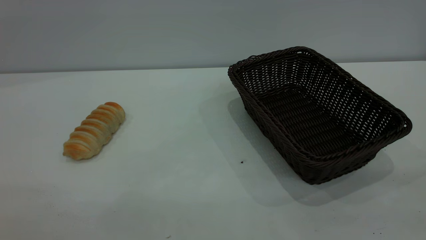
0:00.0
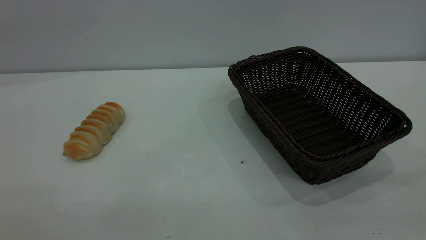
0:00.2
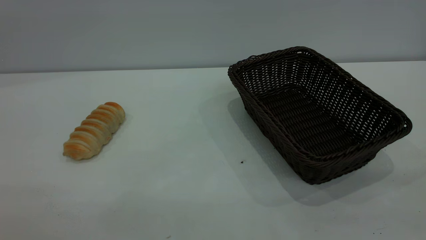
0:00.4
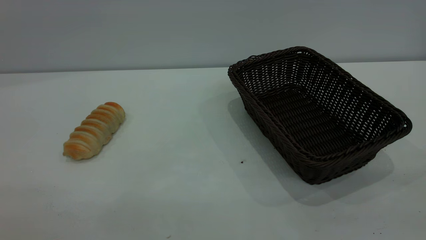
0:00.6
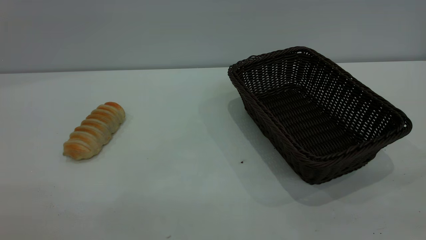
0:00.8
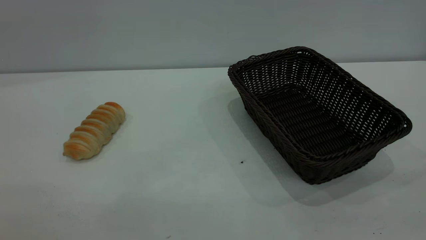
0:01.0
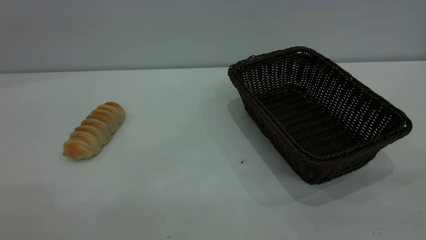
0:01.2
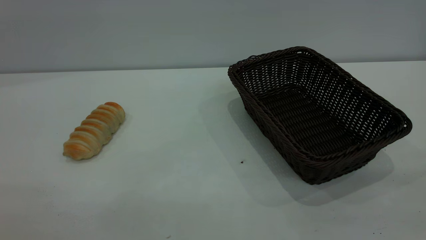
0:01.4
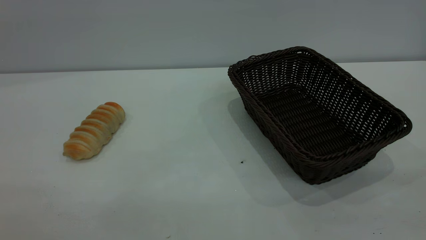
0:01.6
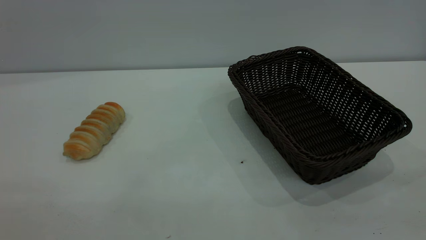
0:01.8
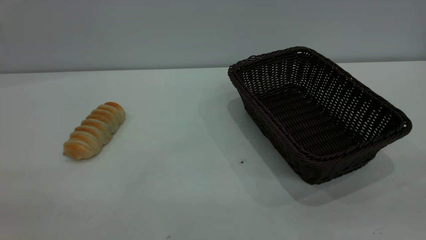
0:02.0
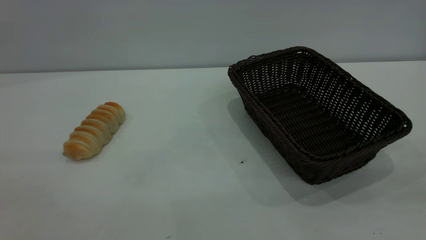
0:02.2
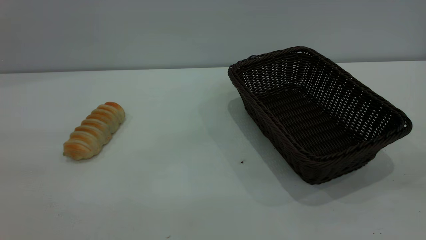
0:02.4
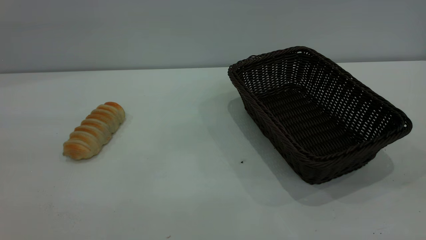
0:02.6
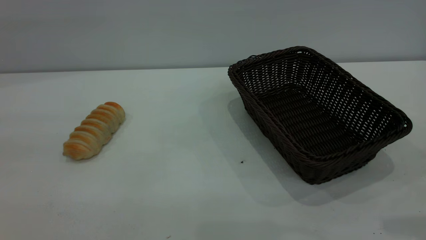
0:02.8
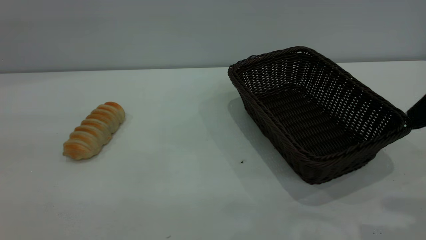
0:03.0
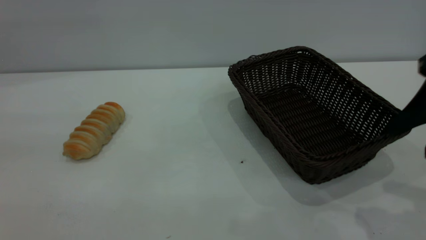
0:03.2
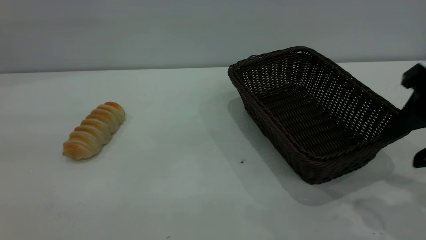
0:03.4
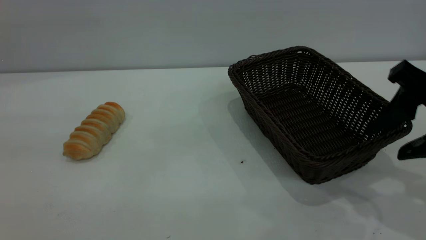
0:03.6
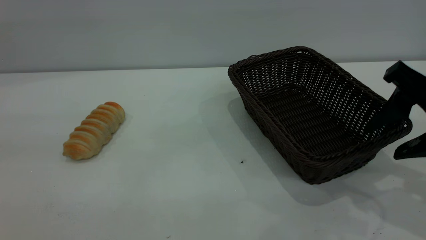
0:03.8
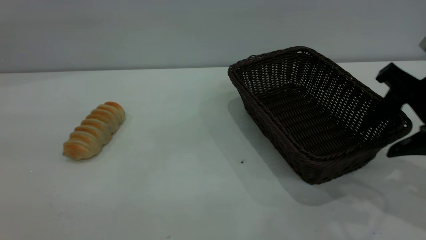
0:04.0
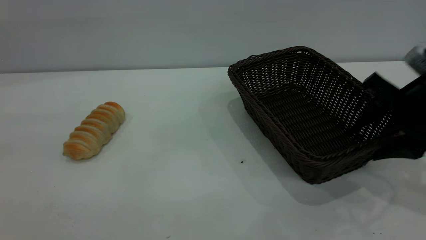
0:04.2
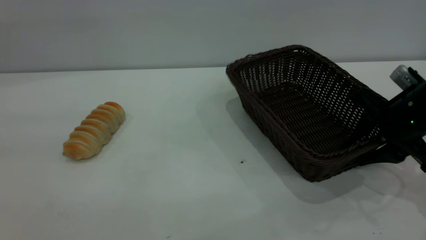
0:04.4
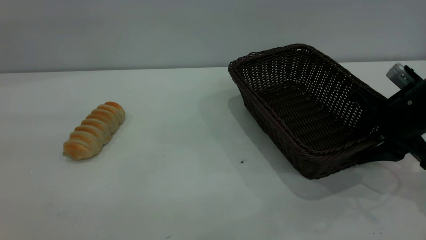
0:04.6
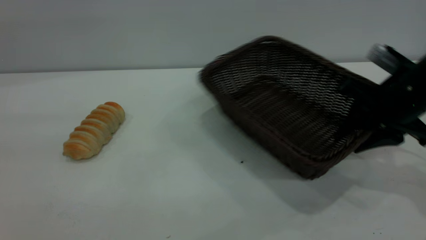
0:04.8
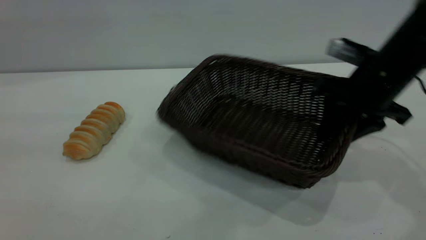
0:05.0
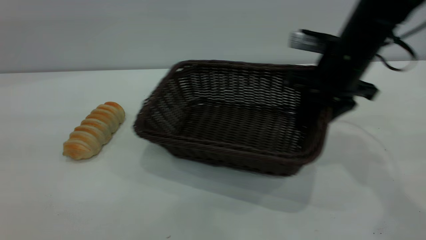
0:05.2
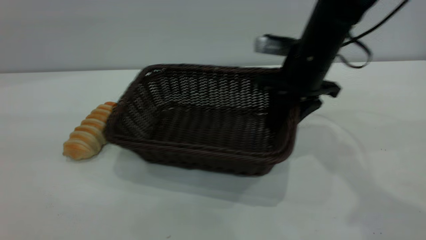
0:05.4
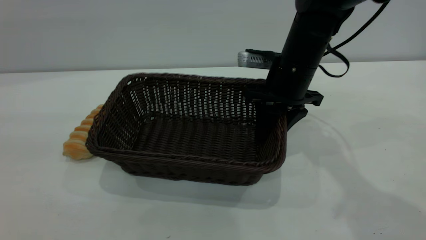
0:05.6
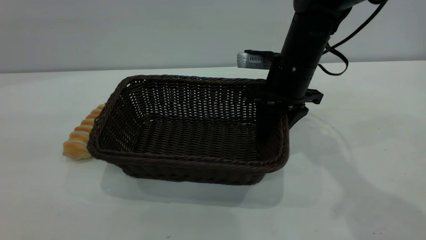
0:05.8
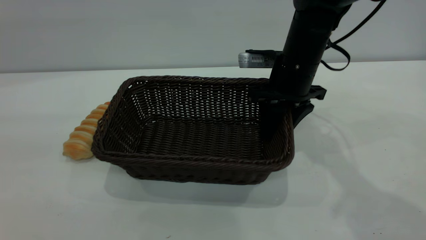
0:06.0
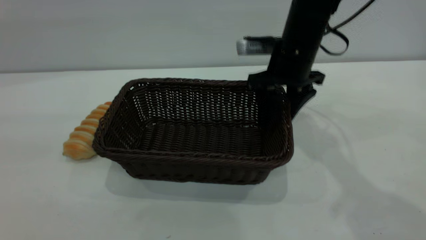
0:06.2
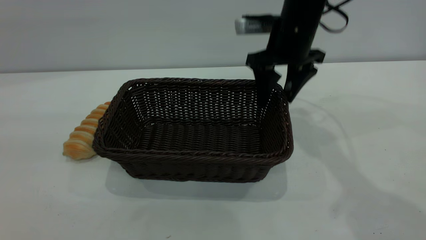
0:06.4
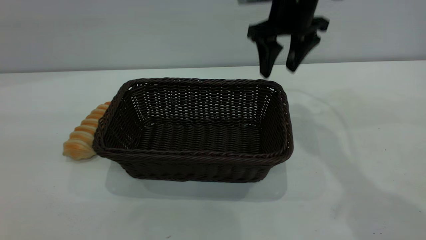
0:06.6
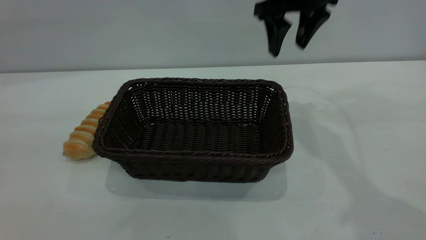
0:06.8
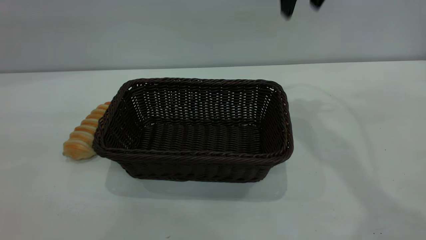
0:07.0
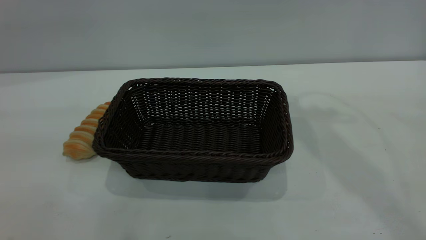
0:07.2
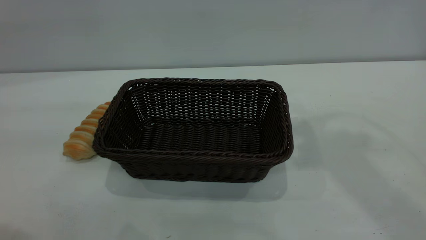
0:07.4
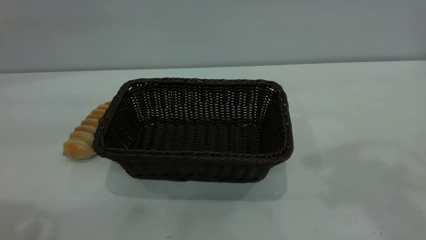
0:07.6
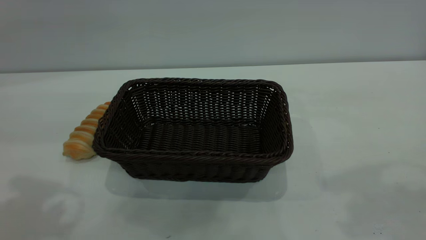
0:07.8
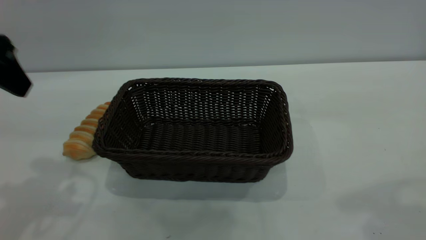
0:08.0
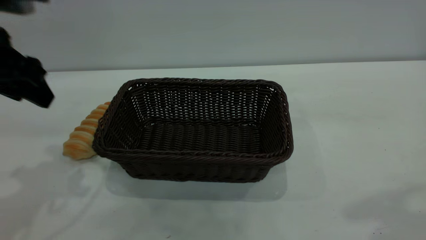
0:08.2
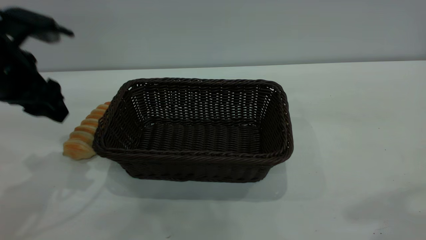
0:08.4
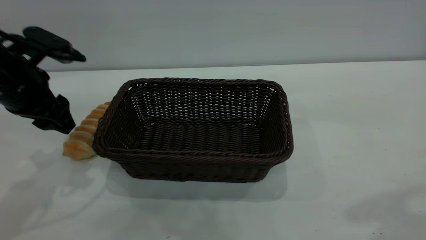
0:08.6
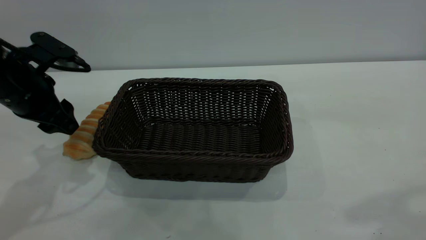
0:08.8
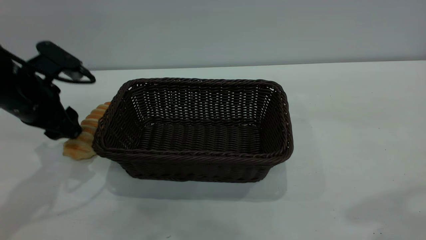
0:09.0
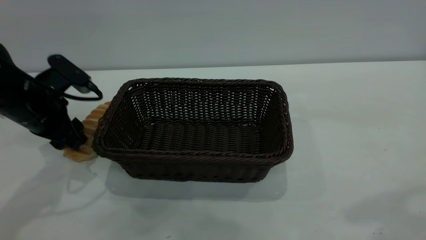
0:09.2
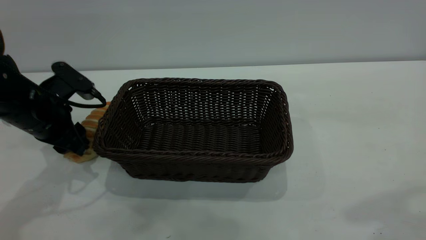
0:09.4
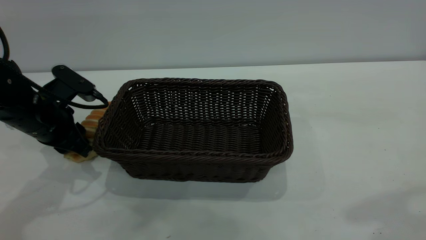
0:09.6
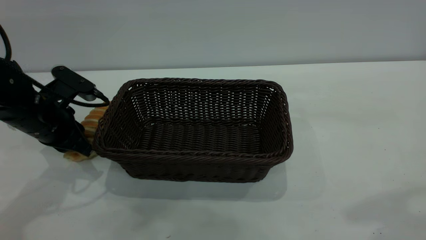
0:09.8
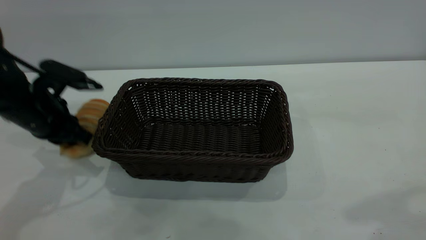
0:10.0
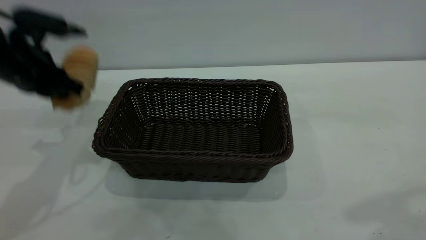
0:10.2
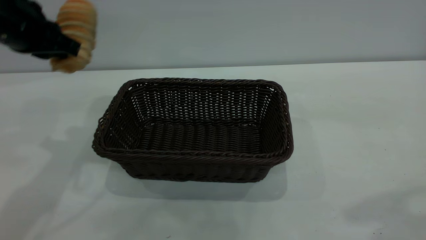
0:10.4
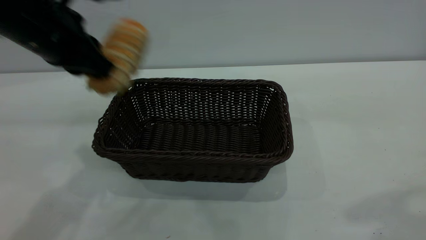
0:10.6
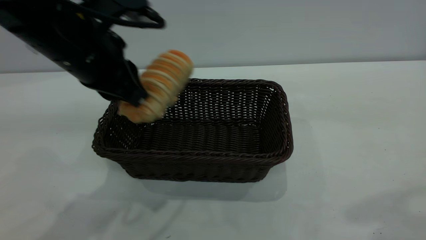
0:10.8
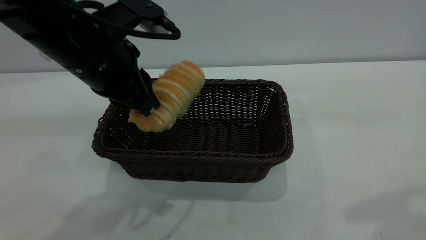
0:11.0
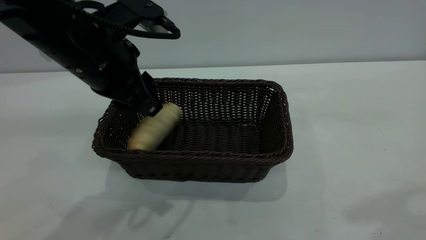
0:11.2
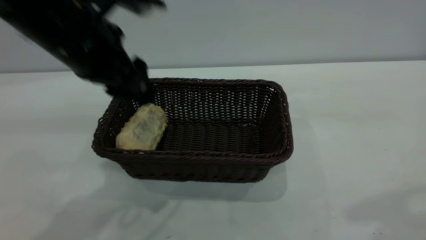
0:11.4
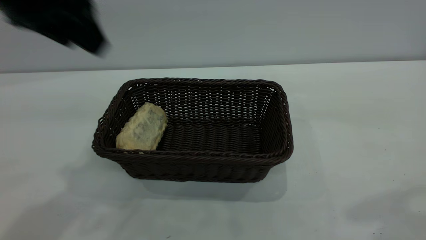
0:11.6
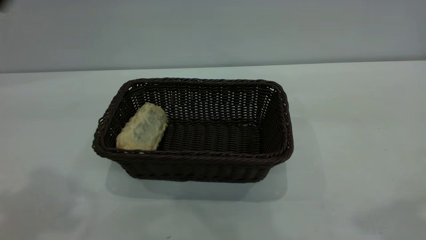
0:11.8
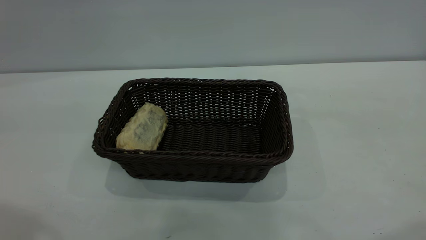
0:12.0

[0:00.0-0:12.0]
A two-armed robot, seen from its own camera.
Task of the whole recording: One hand grasps the black basket and places it in the middle of the table, while the other hand picks up the long bread and puts it into the black basket.
Step, 0:00.0 to 0:06.4: Move the basket to the center of view.
Step, 0:10.2 to 0:11.4: place the bread into the basket.
0:00.0 to 0:01.6: Neither gripper changes place.
0:03.0 to 0:04.4: The right gripper travels downward and forward by approximately 20 cm, and closes.
0:04.4 to 0:06.0: The right gripper heads to the left and forward, covering roughly 20 cm.
0:06.0 to 0:07.6: The left gripper is displaced forward by some 10 cm, while the right gripper shifts roughly 35 cm upward and backward, and opens its fingers.
0:07.6 to 0:09.0: The left gripper shifts approximately 25 cm downward and forward.
0:09.0 to 0:10.4: The left gripper goes about 10 cm upward, and closes up.
0:10.4 to 0:12.0: The left gripper heads backward and upward, covering roughly 25 cm, and opens up, while the right gripper changes place by roughly 5 cm.

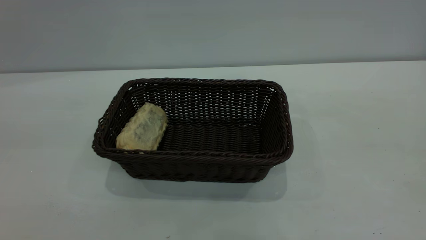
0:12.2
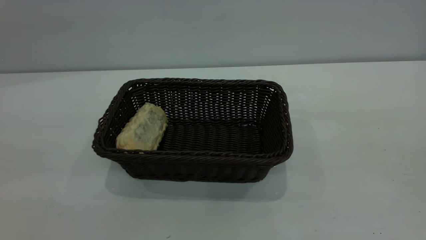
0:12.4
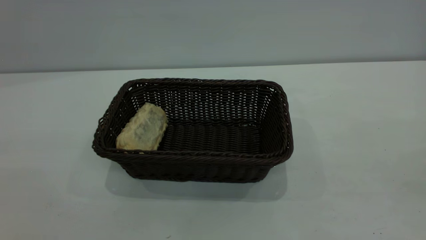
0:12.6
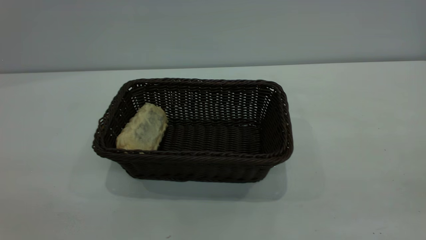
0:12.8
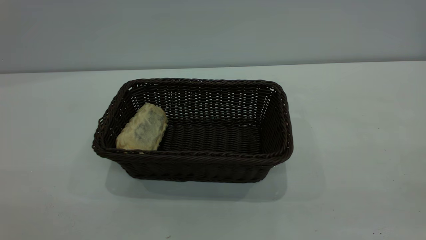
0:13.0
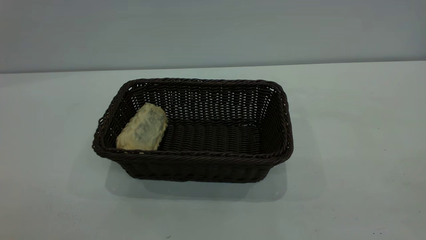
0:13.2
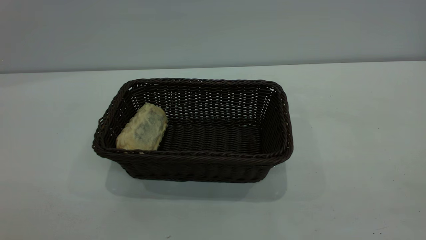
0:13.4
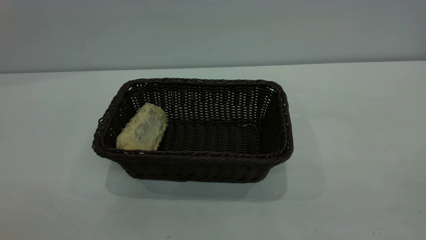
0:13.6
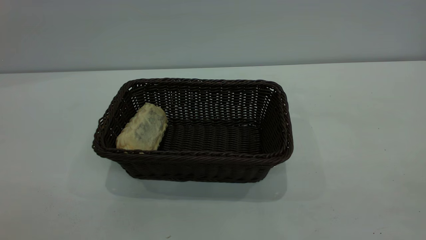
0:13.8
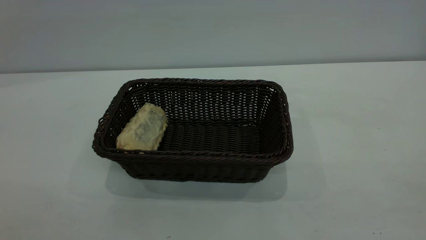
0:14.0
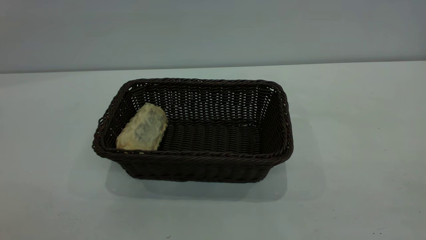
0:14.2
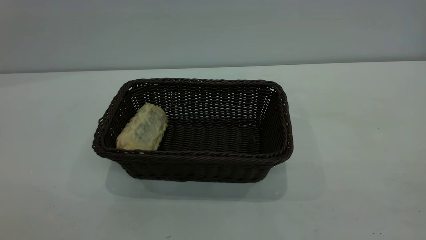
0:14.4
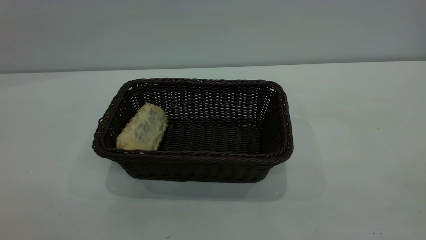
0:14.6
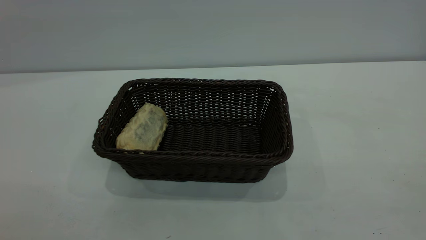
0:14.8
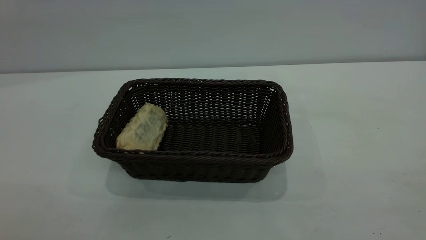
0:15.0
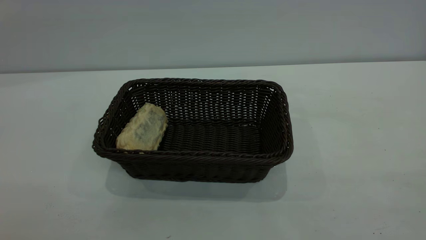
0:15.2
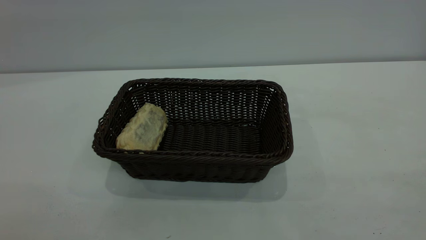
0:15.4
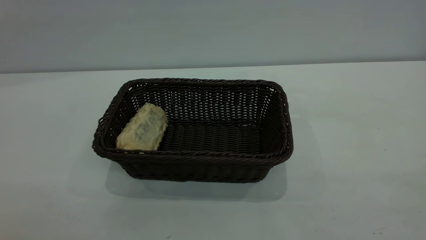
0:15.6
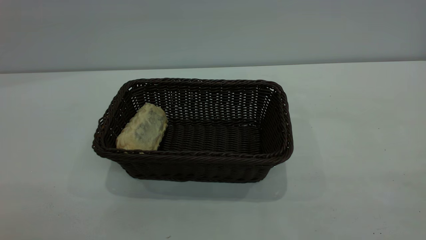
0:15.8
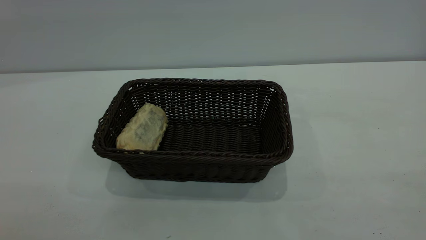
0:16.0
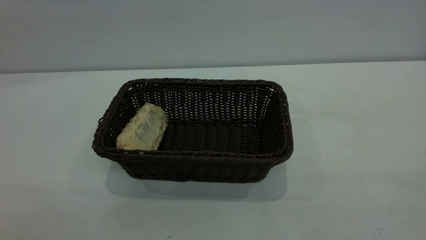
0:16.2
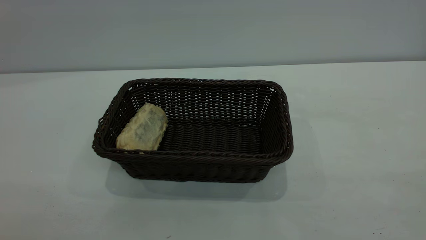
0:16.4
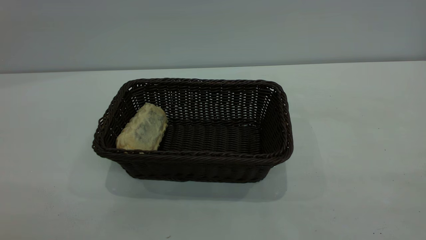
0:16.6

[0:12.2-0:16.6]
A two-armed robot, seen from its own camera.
Task of the whole recording: One hand grasps the black basket and places it in the middle of the table, while the other hand picks up the long bread and puts it into the black basket.
0:15.2 to 0:16.6: Both grippers stay put.
